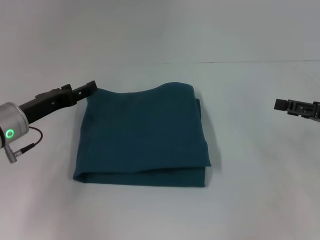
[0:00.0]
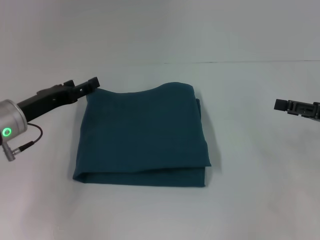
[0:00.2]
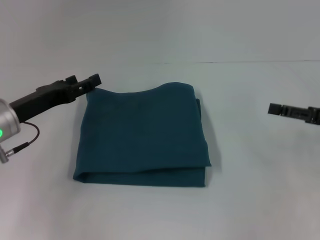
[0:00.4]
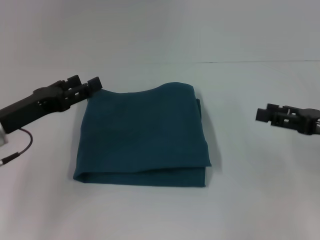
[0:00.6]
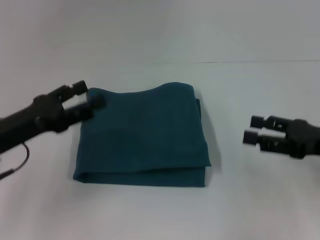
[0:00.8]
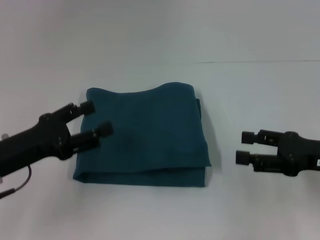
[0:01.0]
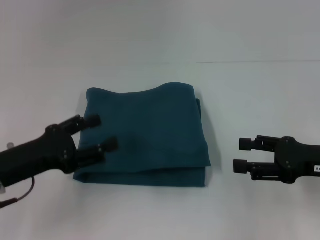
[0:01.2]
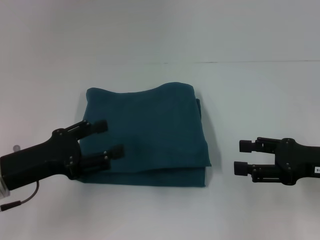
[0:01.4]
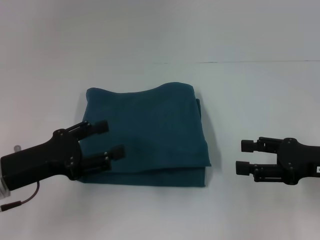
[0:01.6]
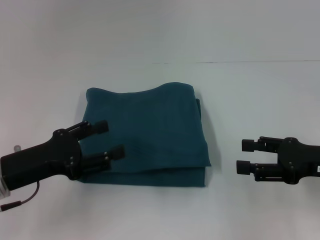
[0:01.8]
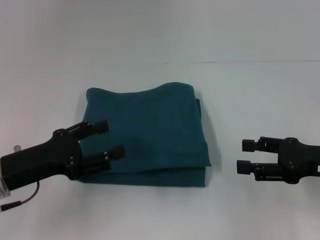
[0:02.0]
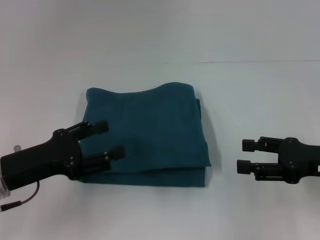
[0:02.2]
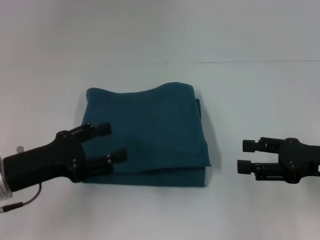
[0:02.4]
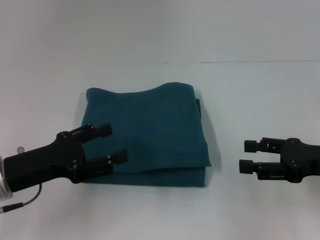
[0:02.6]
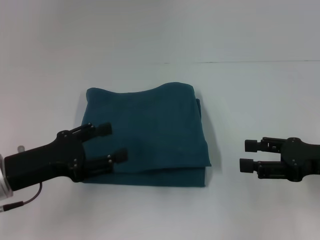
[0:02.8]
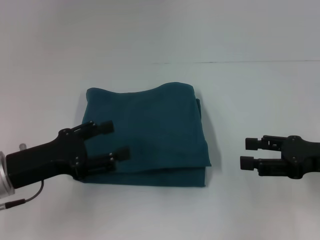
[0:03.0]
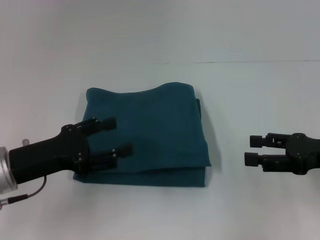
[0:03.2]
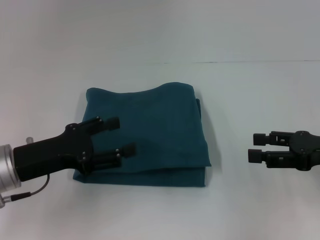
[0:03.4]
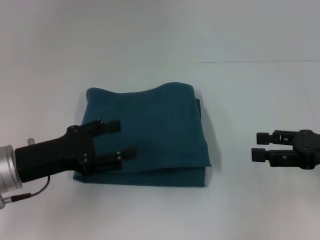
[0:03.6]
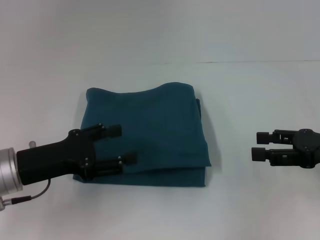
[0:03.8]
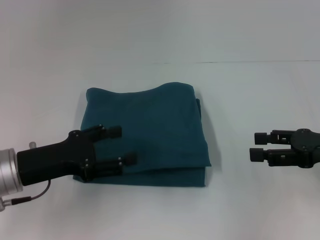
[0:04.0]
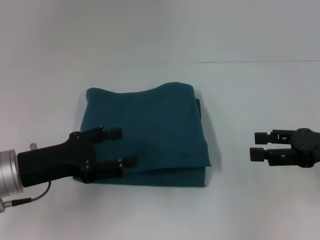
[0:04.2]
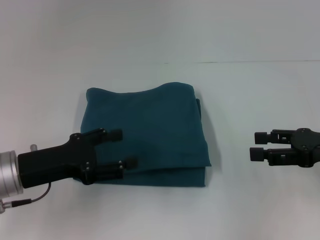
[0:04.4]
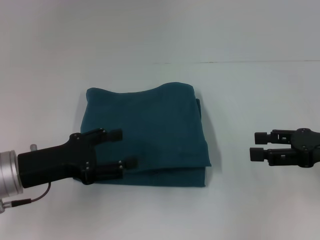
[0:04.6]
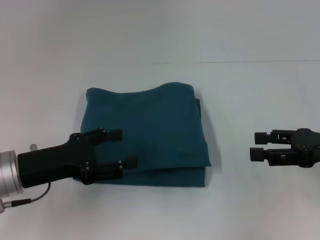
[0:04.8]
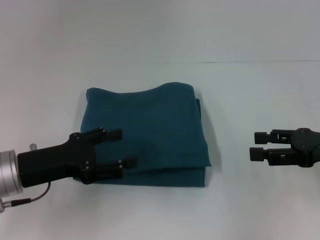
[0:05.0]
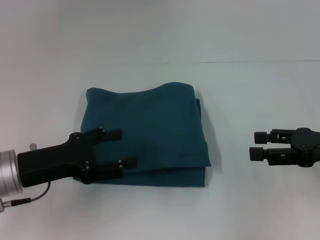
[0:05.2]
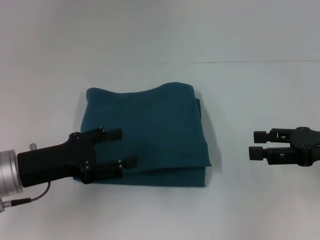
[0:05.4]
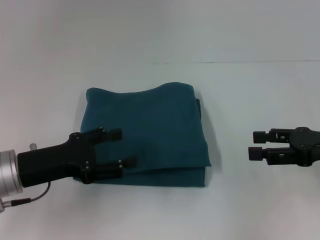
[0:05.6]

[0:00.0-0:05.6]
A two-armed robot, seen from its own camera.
0:00.0 to 0:01.4: The left gripper is displaced backward by roughly 10 cm; the right gripper shifts approximately 5 cm to the left.
0:01.4 to 0:02.8: Both grippers stay about where they are.
0:02.8 to 0:04.2: The grippers move only a little.
0:04.2 to 0:05.6: Both grippers stay put.

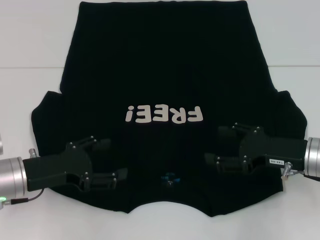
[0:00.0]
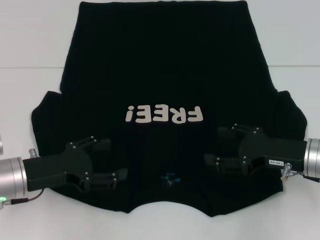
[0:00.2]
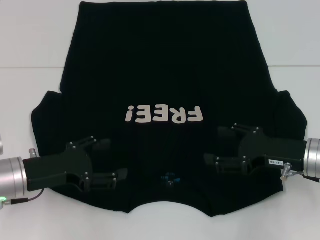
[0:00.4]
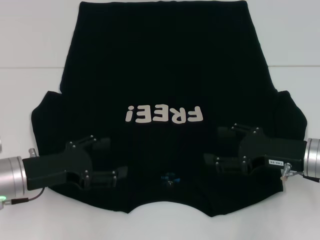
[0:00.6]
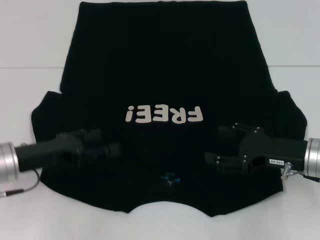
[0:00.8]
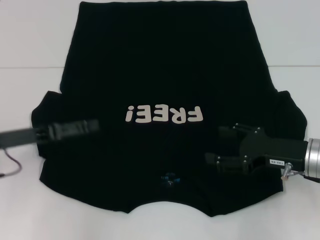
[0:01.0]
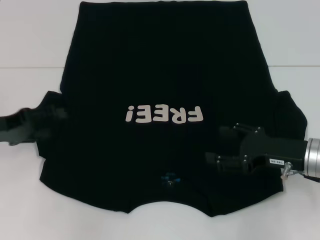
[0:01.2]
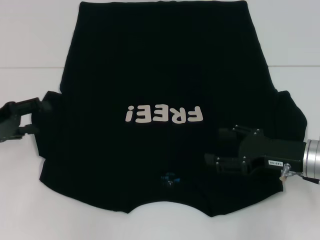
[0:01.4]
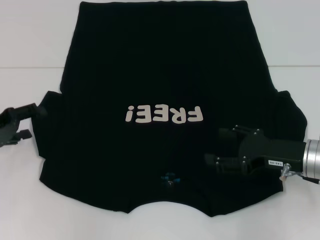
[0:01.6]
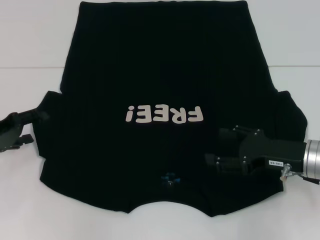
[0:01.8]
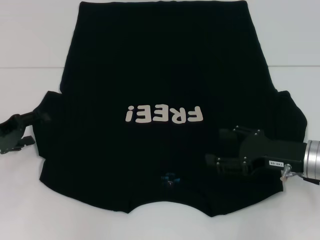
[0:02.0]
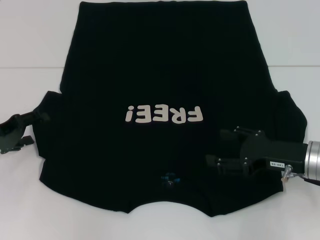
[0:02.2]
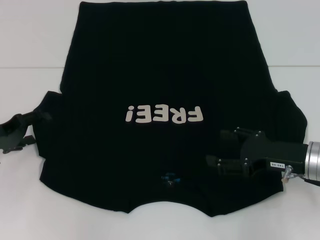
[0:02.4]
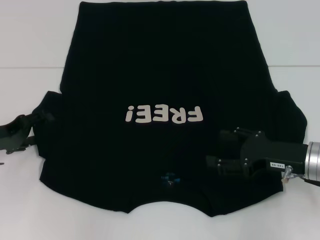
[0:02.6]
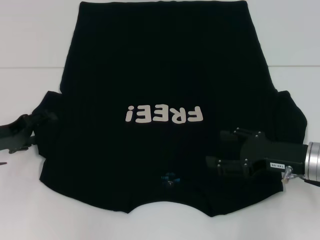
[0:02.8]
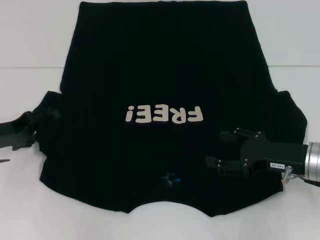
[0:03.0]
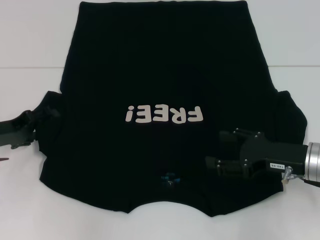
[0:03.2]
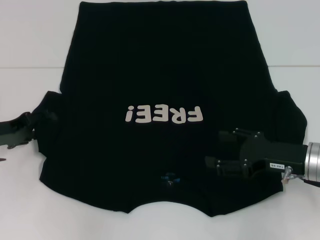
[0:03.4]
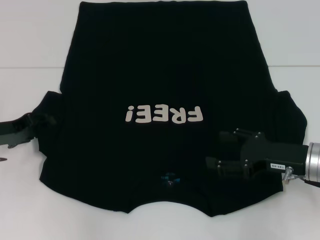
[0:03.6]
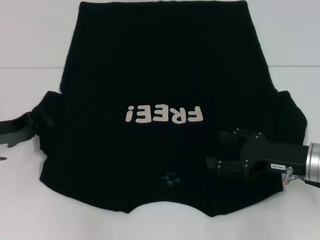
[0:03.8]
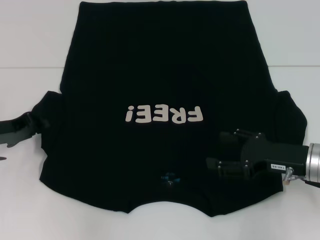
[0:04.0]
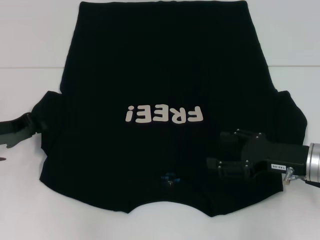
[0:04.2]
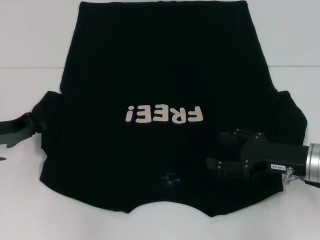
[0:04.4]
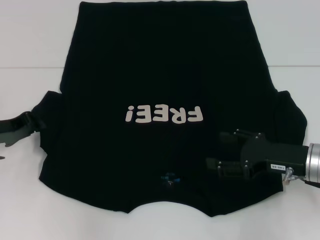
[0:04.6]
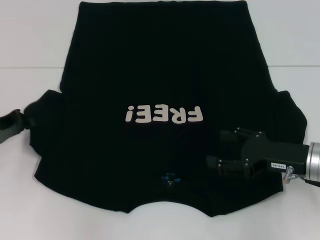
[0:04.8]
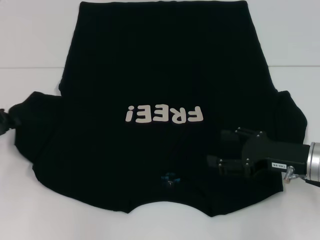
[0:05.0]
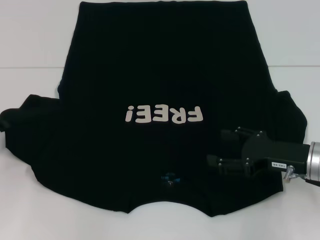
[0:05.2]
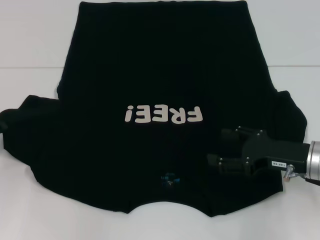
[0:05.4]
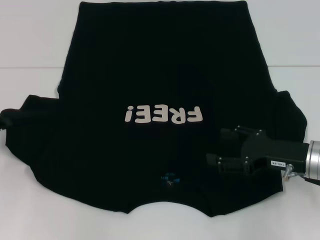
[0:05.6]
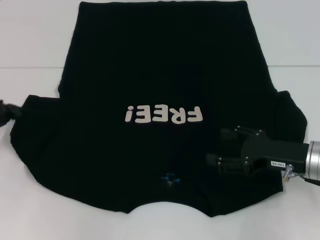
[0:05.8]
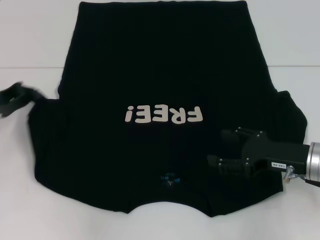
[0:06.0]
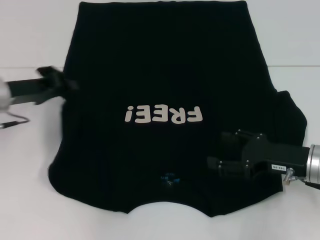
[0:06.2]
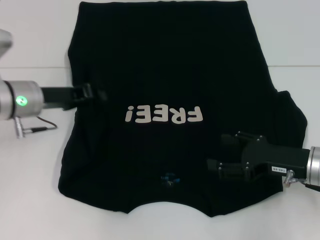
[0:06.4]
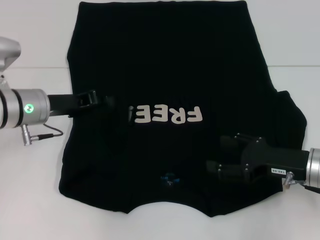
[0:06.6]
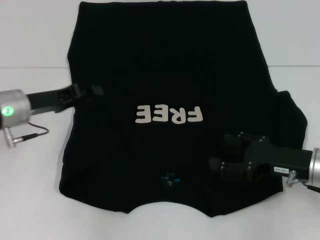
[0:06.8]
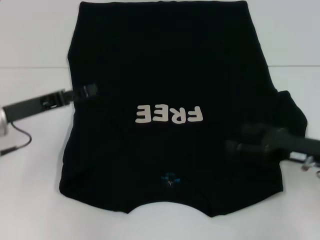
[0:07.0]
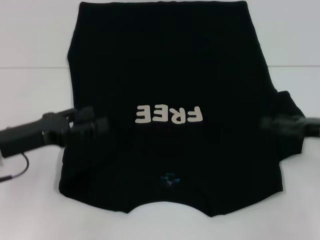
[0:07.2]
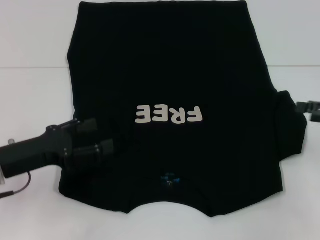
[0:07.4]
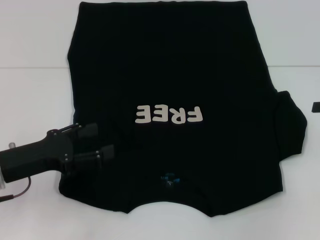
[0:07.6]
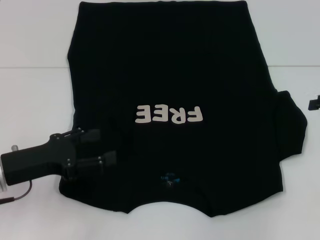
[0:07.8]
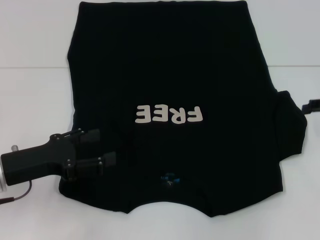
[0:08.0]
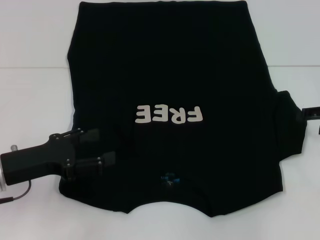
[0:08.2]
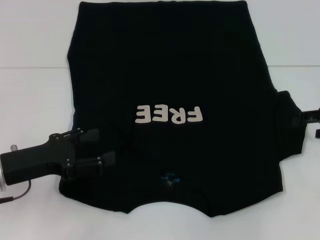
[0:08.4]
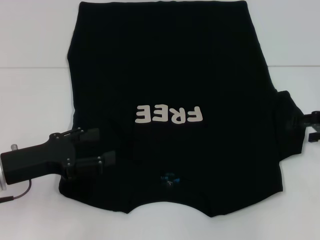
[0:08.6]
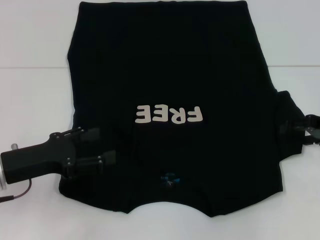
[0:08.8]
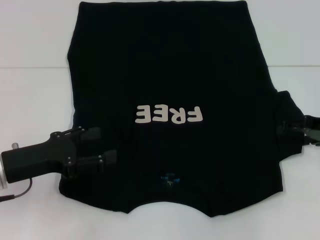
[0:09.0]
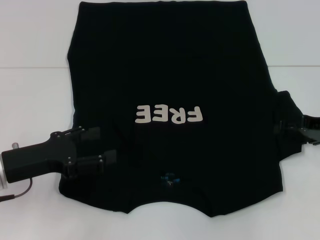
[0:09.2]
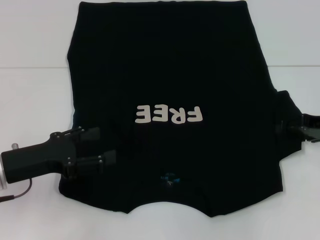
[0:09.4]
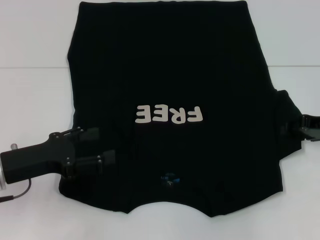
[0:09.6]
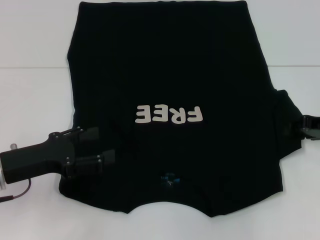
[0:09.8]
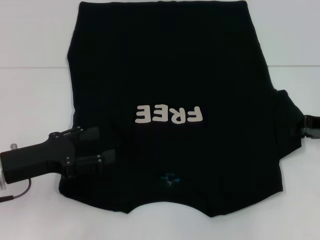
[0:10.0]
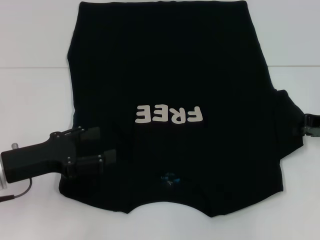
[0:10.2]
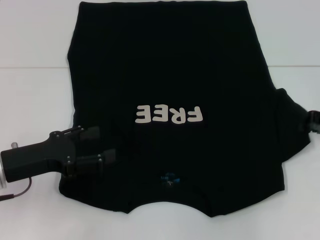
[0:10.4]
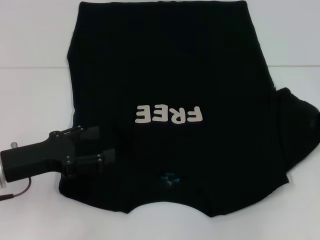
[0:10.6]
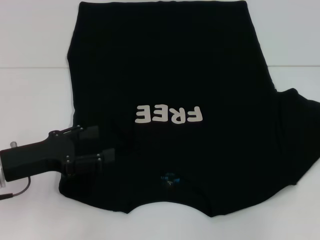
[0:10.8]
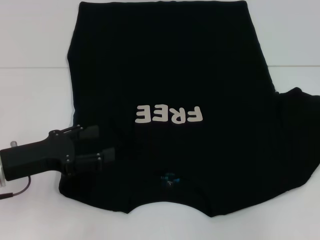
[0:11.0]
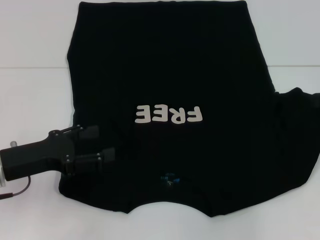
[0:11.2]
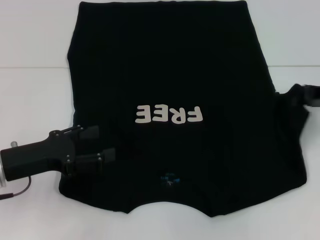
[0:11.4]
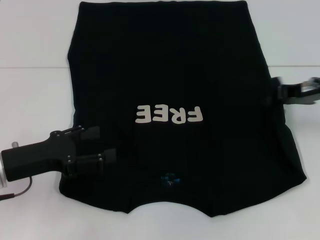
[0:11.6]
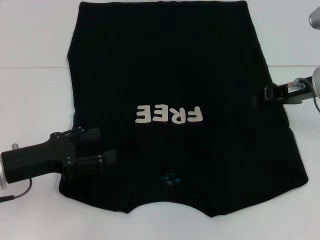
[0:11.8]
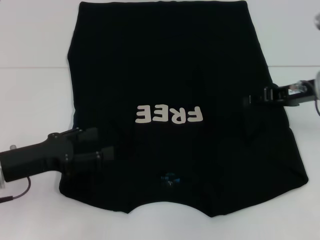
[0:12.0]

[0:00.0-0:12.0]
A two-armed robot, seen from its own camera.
Step, 0:00.0 to 0:07.0: Fold the bottom left sleeve with your left hand.
0:00.0 to 0:01.6: The left gripper shifts roughly 10 cm to the left.
0:01.6 to 0:03.0: The grippers move only a little.
0:03.0 to 0:04.4: The left gripper closes its fingers.
0:04.4 to 0:06.0: There are only small adjustments of the grippers.
0:06.0 to 0:07.6: The left gripper moves backward and to the right, approximately 10 cm, and opens its fingers; the right gripper is displaced to the right and upward by roughly 15 cm.
0:07.6 to 0:09.0: The right gripper goes roughly 5 cm to the left.
0:09.0 to 0:10.4: The right gripper closes its fingers.
0:10.4 to 0:12.0: The right gripper moves to the left, some 10 cm.

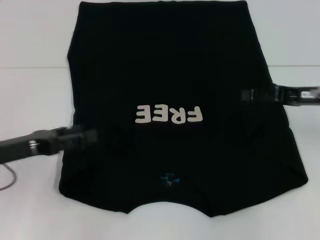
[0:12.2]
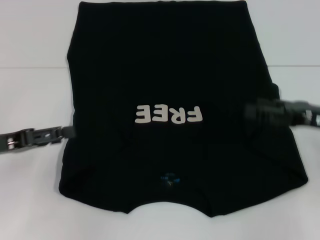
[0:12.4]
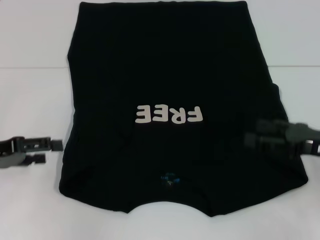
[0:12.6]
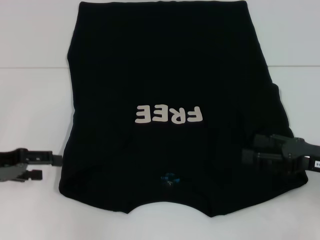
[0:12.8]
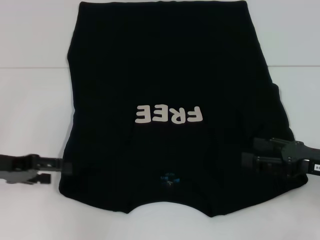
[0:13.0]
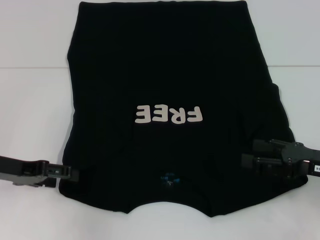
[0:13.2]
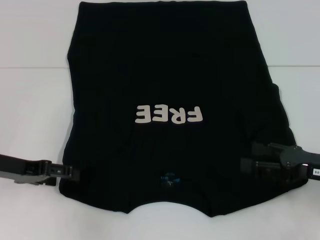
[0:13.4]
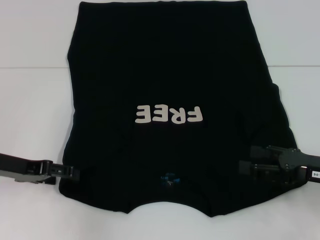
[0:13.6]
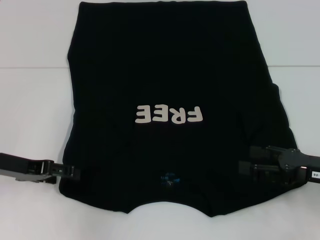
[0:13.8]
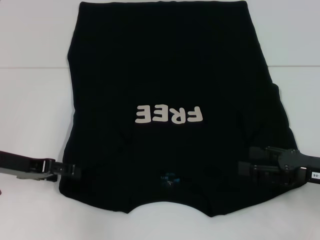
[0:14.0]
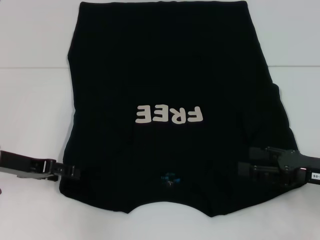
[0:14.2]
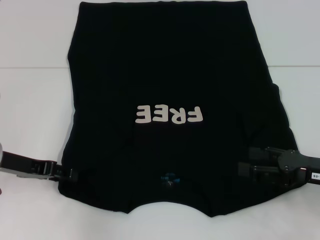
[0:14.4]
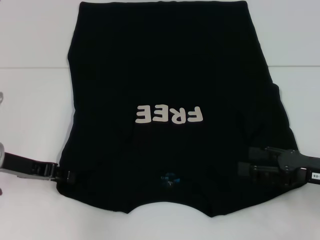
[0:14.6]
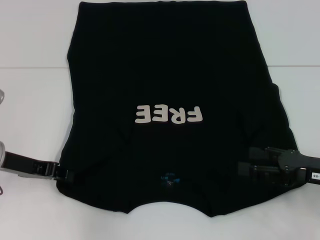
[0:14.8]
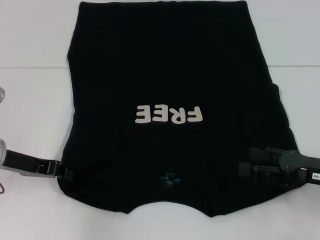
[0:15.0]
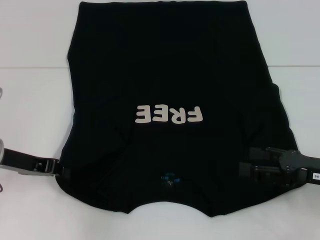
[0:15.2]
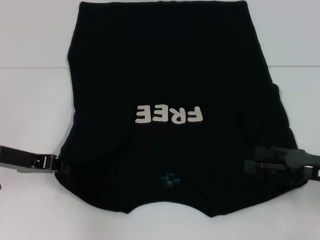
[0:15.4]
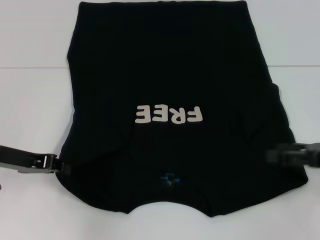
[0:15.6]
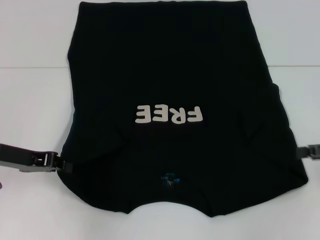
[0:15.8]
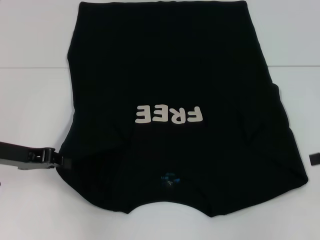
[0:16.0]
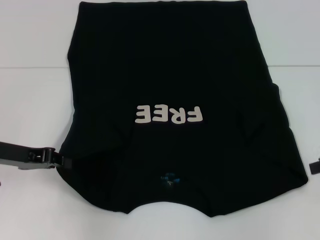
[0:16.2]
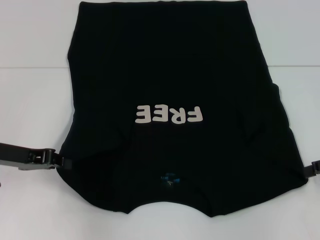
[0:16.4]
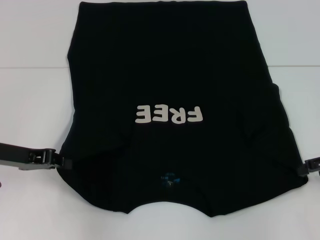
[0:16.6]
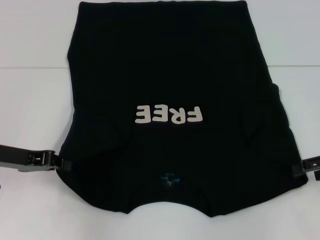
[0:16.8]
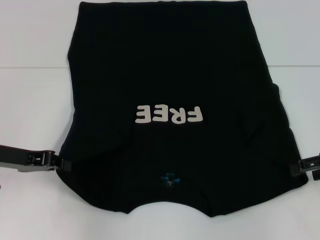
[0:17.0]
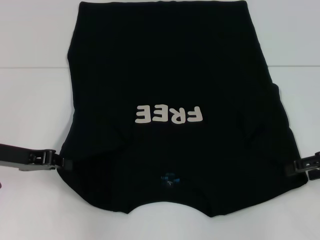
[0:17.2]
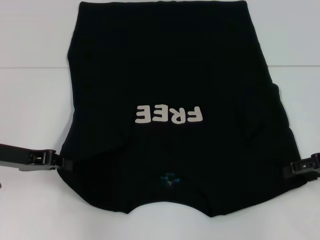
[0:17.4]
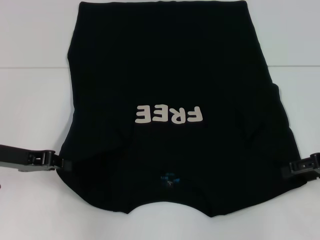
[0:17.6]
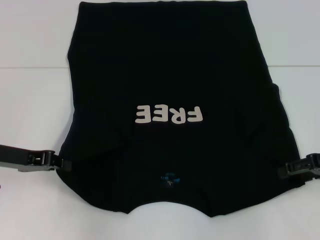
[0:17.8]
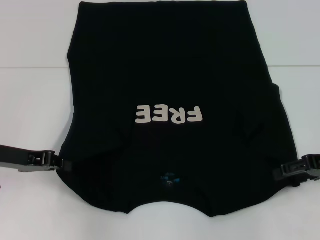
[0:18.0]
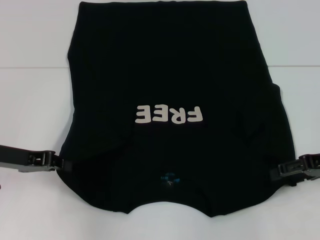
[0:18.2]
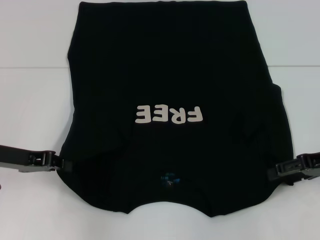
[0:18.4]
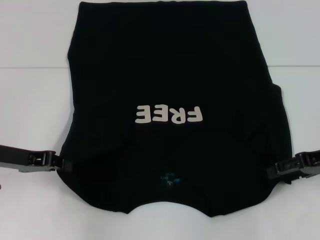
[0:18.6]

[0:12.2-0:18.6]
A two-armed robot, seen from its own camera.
0:12.2 to 0:13.8: The right gripper heads backward and downward, covering roughly 10 cm, and opens its fingers.
0:13.8 to 0:15.4: The left gripper closes its fingers.
0:15.4 to 0:17.0: The right gripper shifts roughly 5 cm forward.
0:17.0 to 0:18.6: The grippers stay close to where they were, moving slightly.
